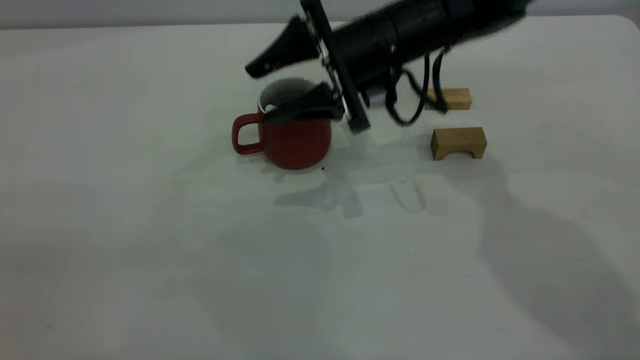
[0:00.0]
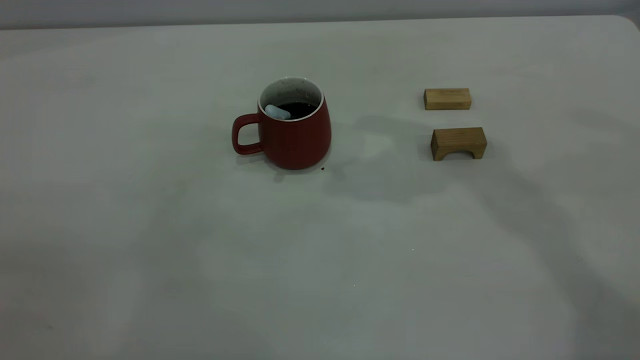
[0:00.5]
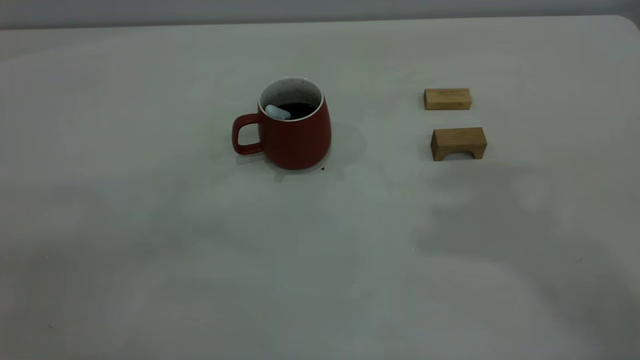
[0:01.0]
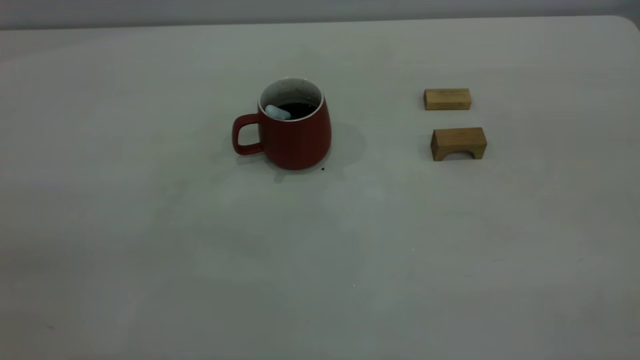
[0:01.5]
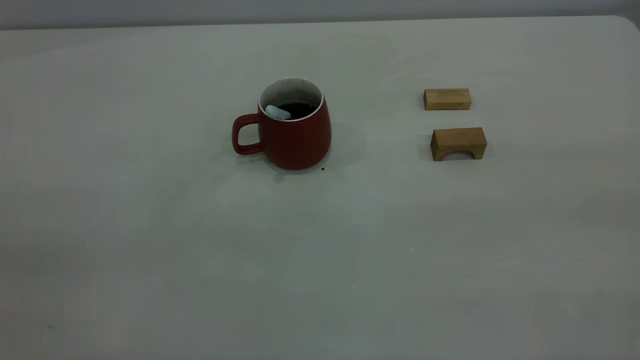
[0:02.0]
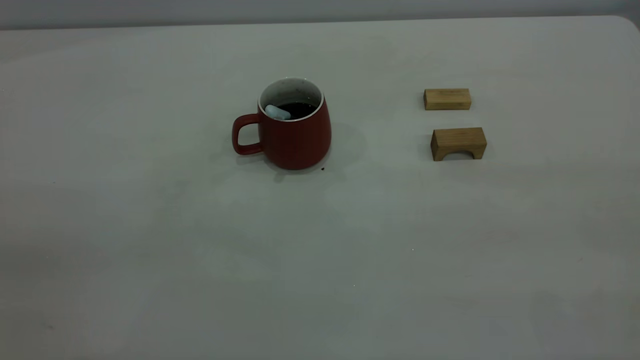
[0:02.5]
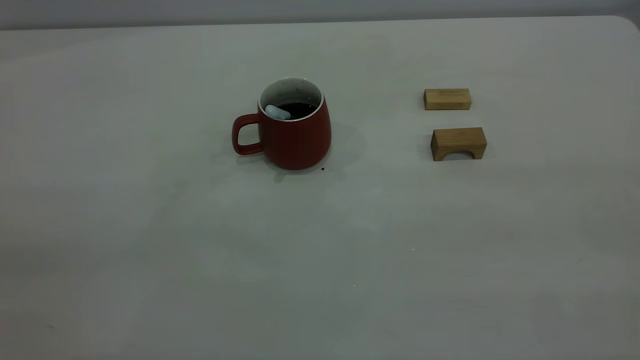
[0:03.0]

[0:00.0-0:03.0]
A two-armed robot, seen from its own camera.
0:00.0 to 0:01.5: The right gripper heads backward, upward and to the right, covering about 50 cm, and closes its fingers.

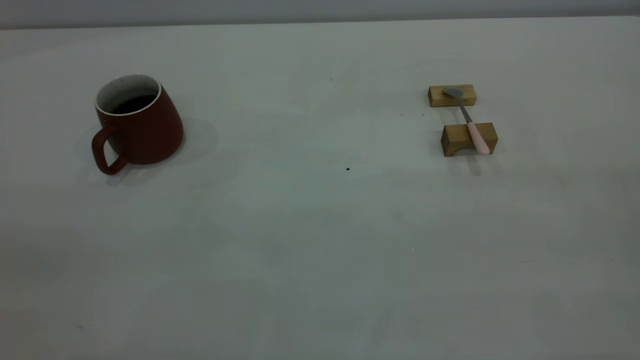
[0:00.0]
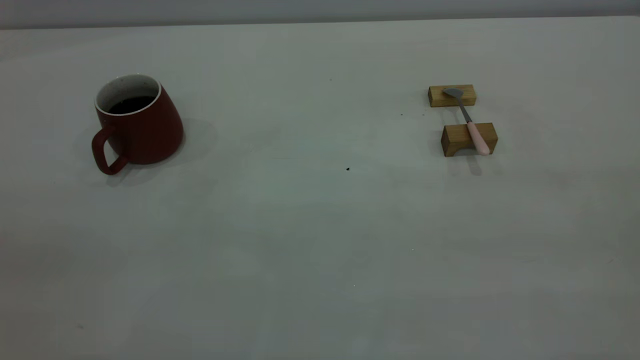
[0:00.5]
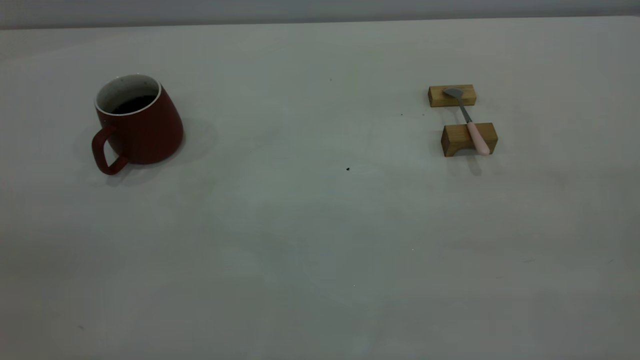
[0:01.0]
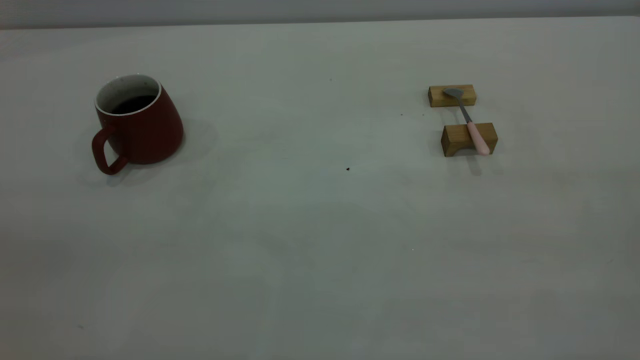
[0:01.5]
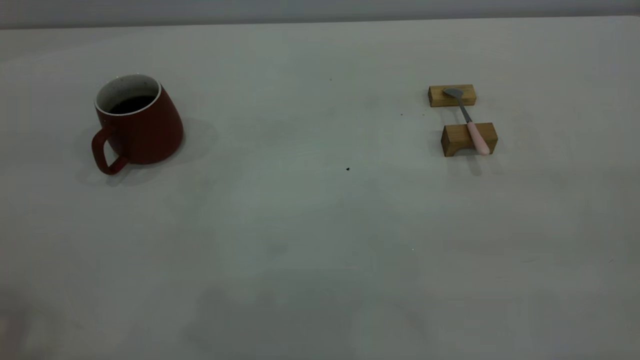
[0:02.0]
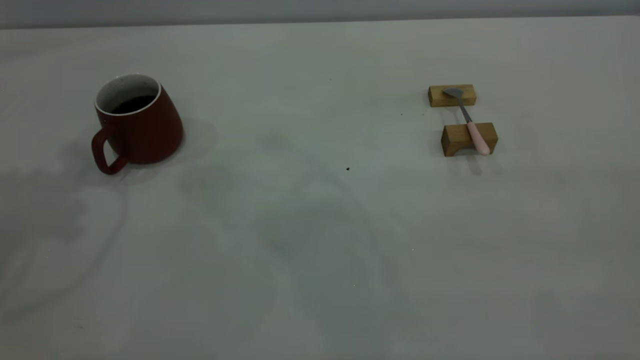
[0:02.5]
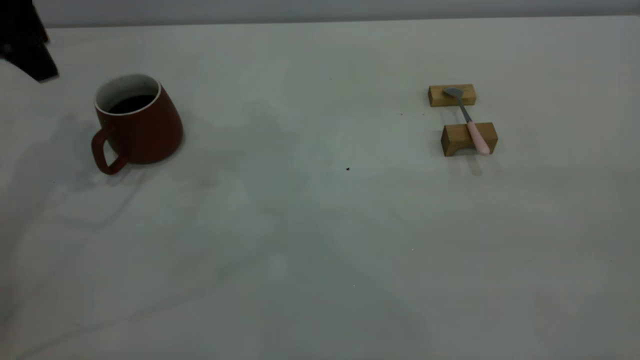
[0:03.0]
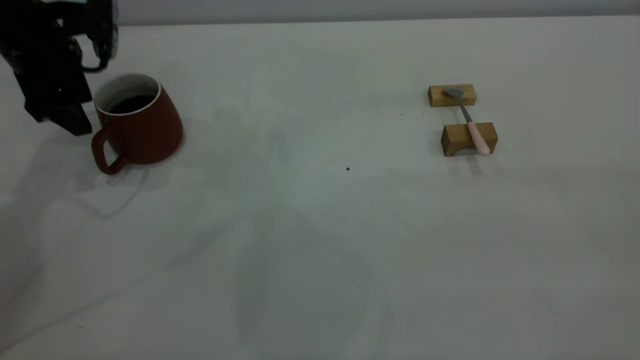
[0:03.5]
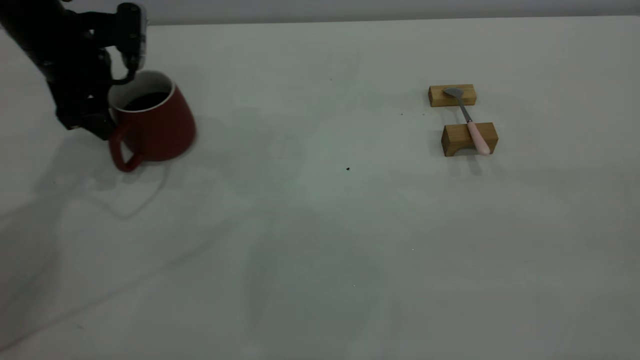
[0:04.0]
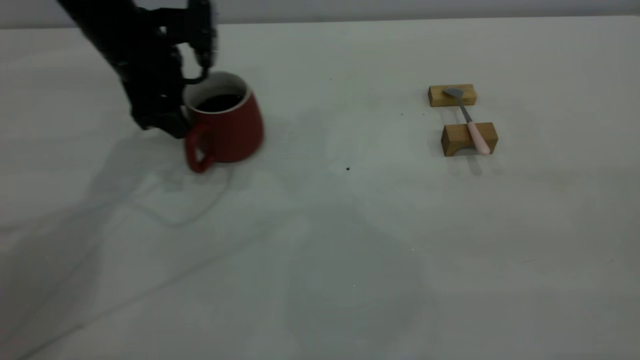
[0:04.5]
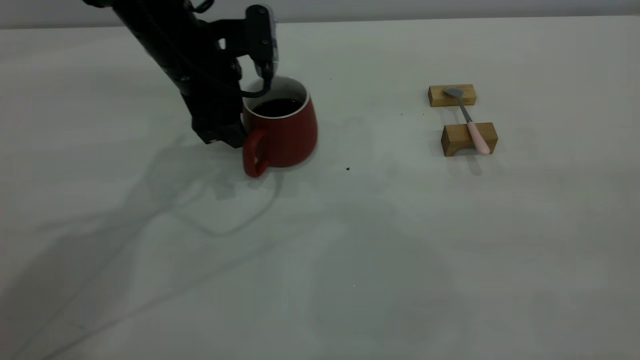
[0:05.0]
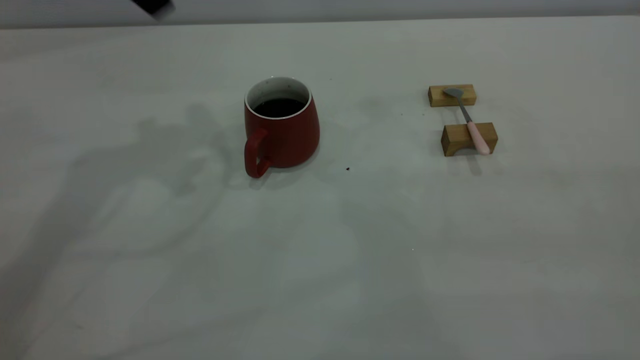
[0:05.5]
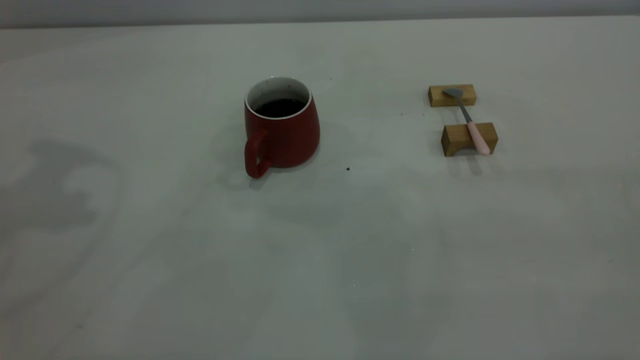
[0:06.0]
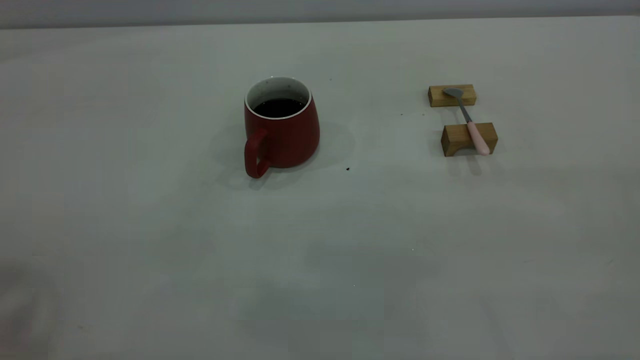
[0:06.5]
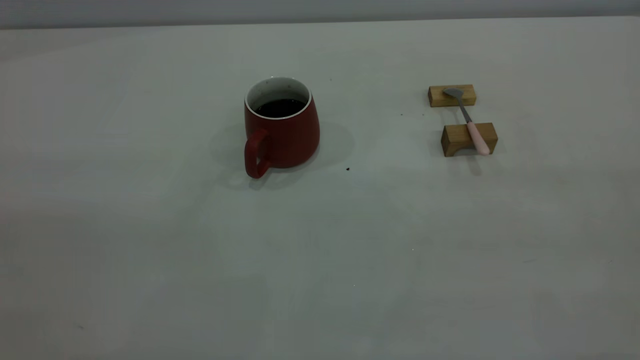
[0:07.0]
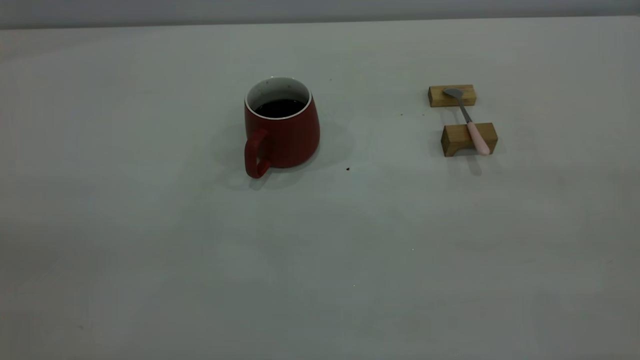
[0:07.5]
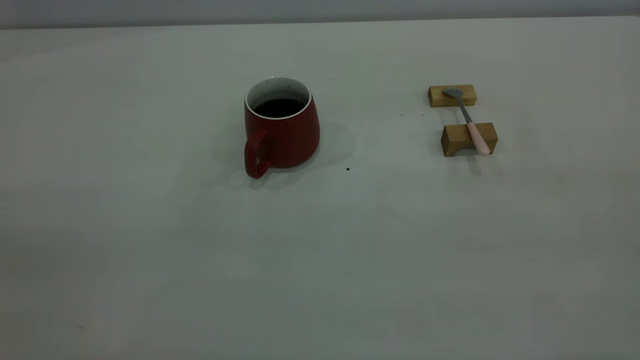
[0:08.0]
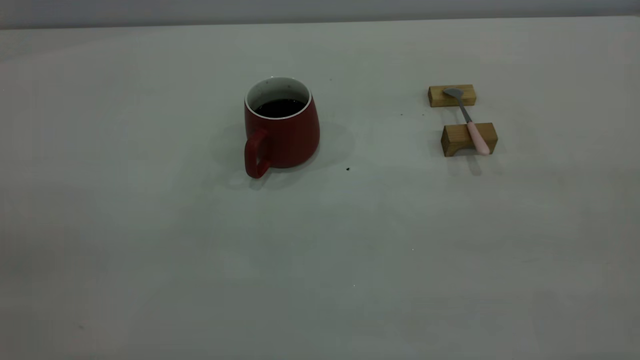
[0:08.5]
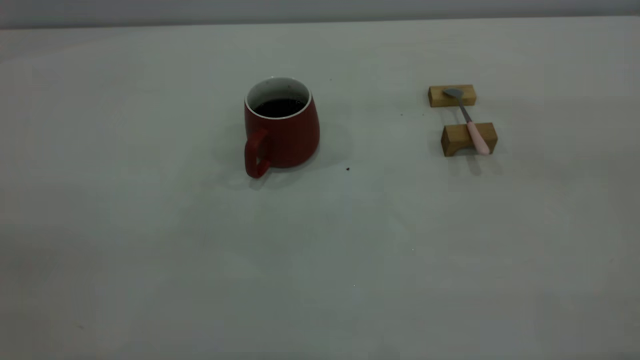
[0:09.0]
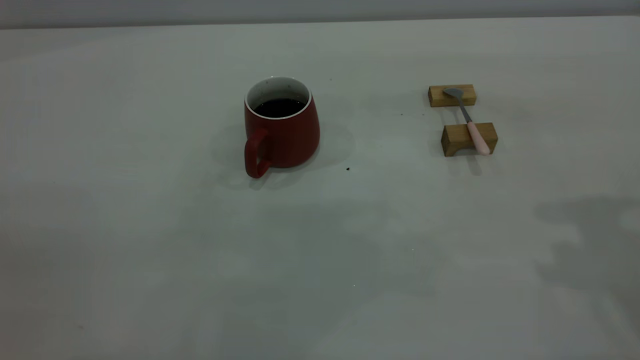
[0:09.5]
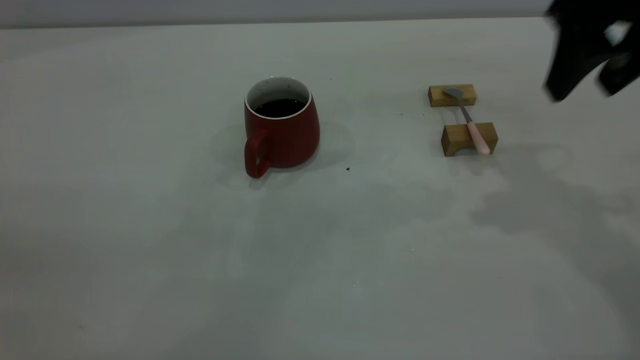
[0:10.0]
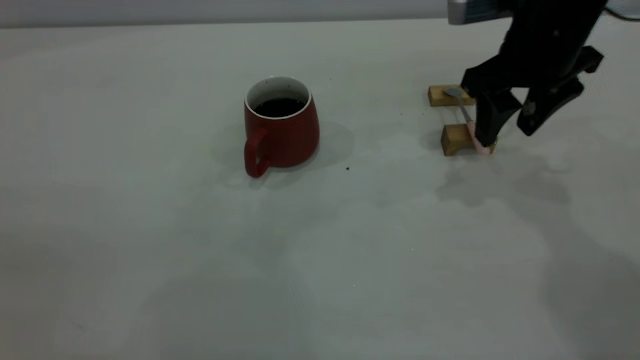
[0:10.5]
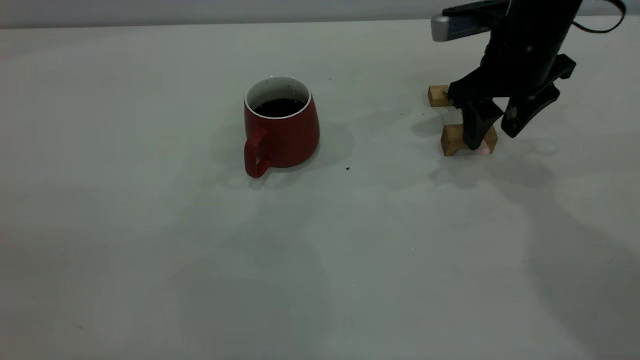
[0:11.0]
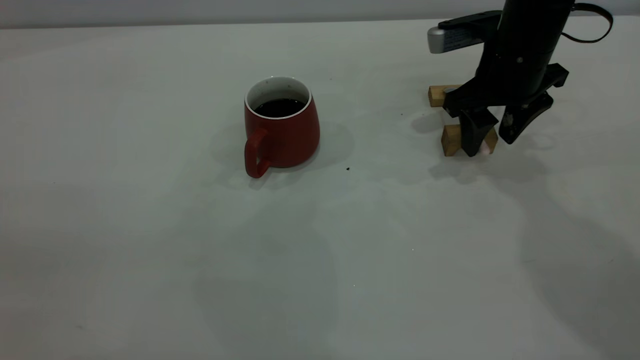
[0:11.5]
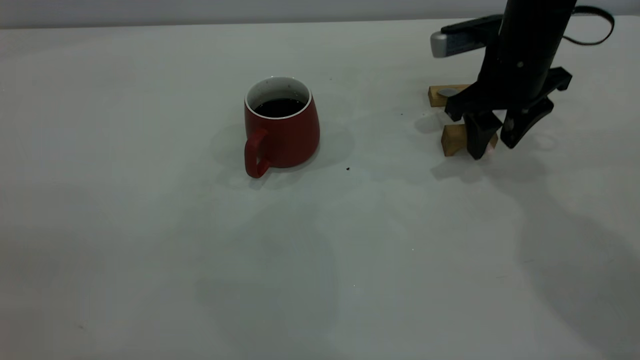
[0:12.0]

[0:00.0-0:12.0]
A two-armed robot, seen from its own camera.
Step, 0:00.0 to 0:05.0: Move the cup with coffee to the center of view.
0:02.0 to 0:04.0: The left gripper moves forward and downward, roughly 35 cm.
0:04.0 to 0:06.0: The left gripper moves upward and backward, some 30 cm.
0:08.0 to 0:10.0: The right gripper travels forward by about 35 cm.
0:10.0 to 0:12.0: The right gripper travels downward and forward by some 15 cm.

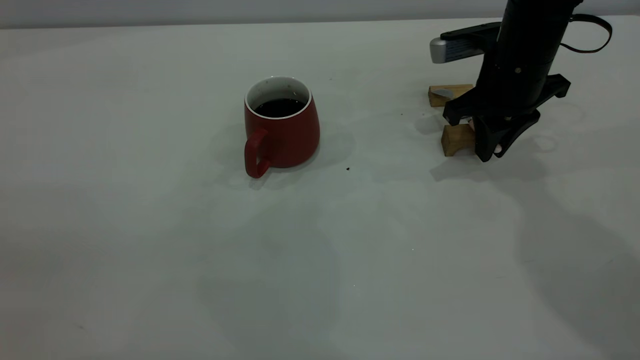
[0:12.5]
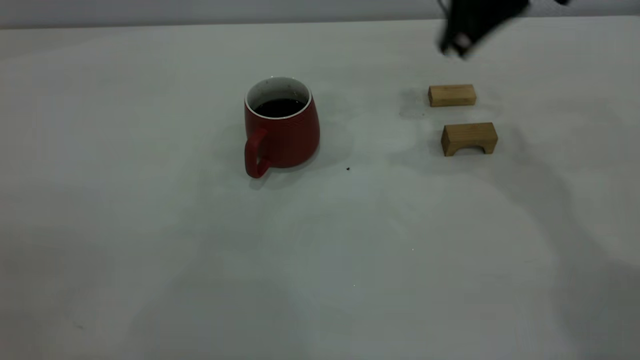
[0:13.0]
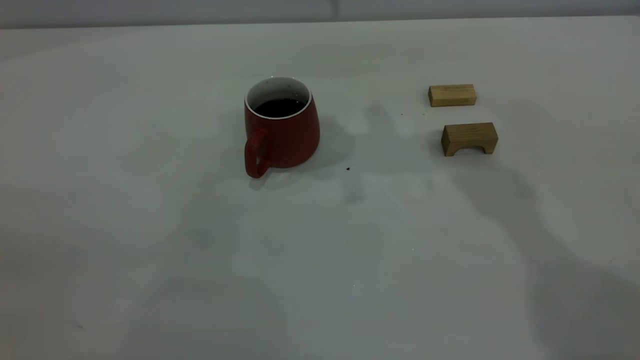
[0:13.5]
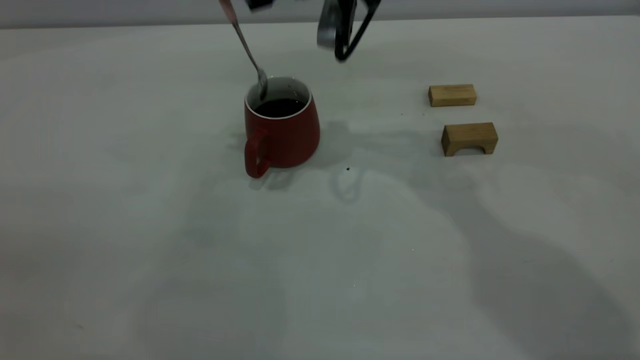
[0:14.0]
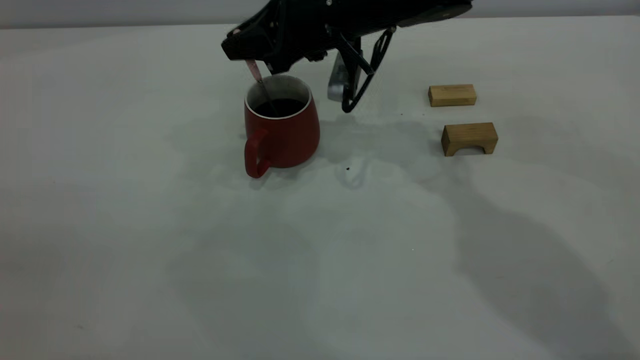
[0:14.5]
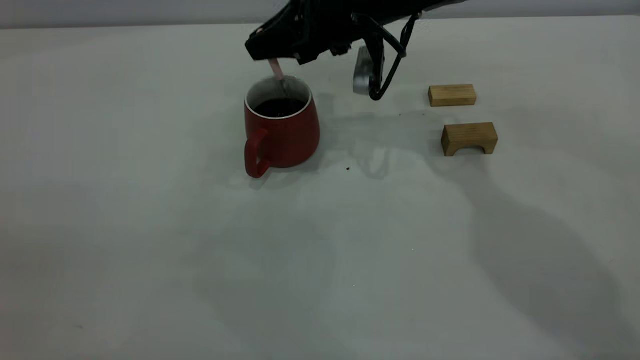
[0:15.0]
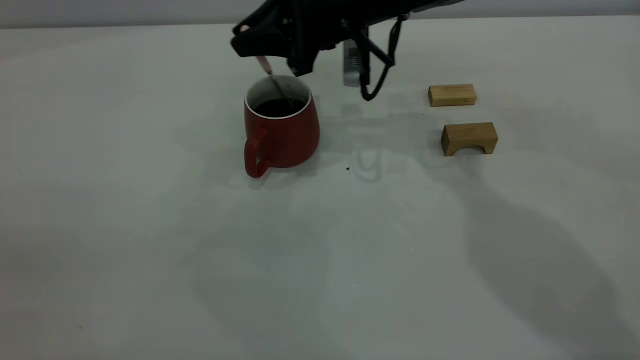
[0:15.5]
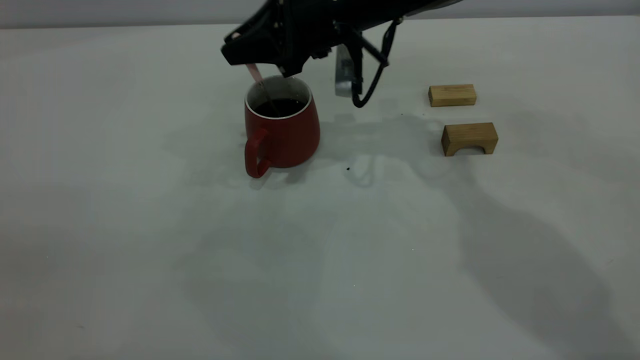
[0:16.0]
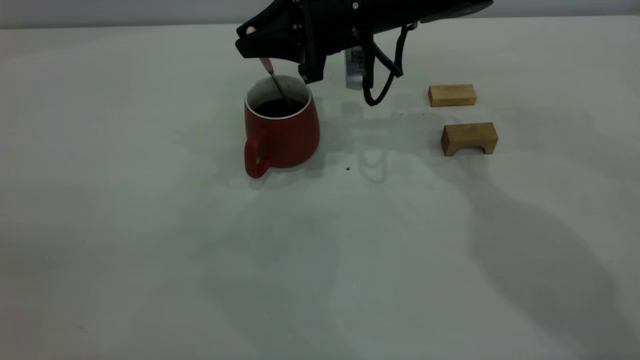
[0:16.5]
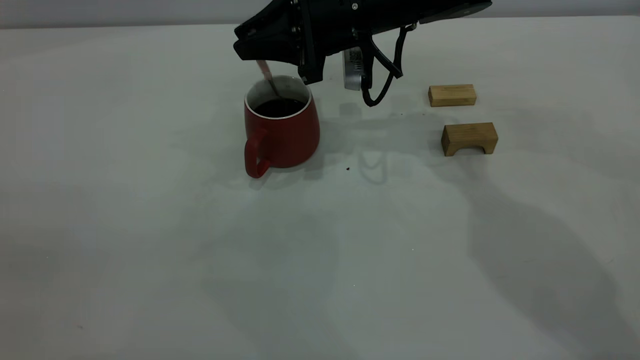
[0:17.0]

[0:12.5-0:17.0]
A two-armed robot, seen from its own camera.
0:12.5 to 0:14.5: The right gripper heads to the left, covering approximately 15 cm, and goes upward and returns, roughly 20 cm each way.
0:14.5 to 0:17.0: There are only small adjustments of the grippers.
